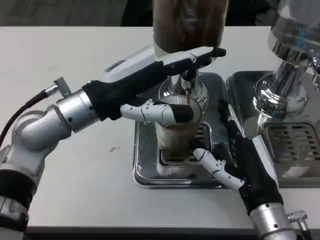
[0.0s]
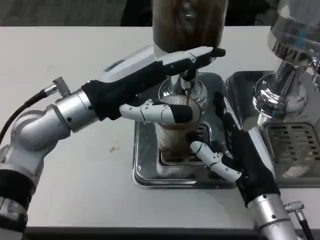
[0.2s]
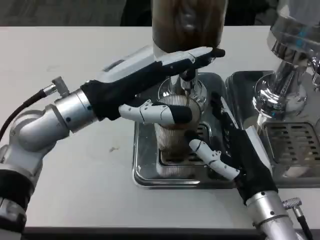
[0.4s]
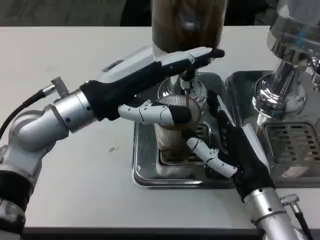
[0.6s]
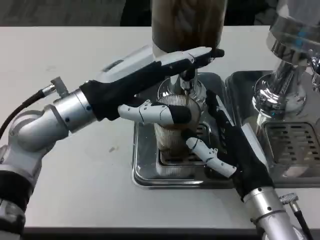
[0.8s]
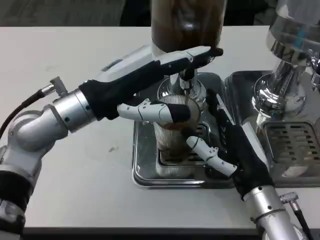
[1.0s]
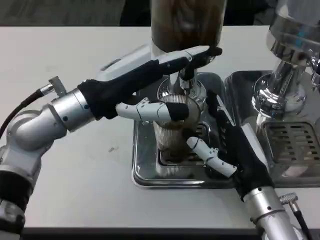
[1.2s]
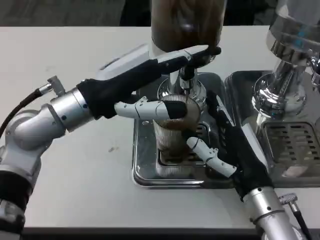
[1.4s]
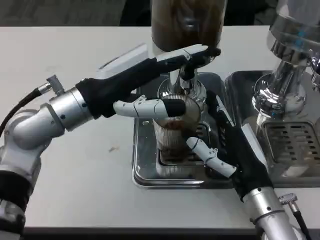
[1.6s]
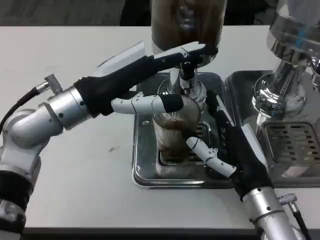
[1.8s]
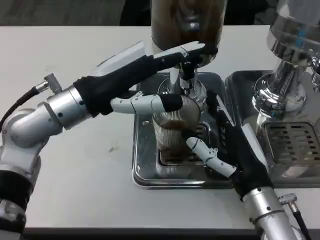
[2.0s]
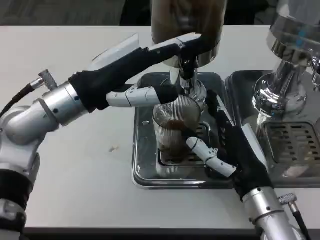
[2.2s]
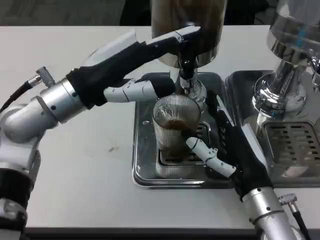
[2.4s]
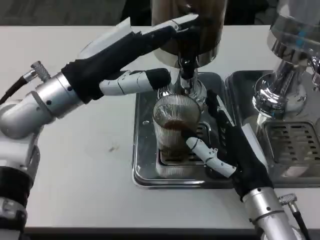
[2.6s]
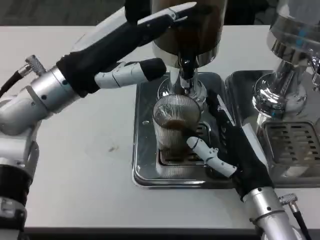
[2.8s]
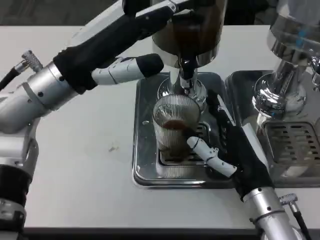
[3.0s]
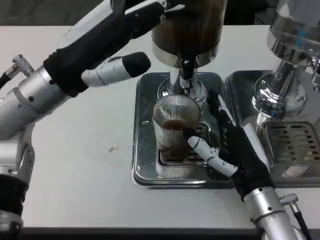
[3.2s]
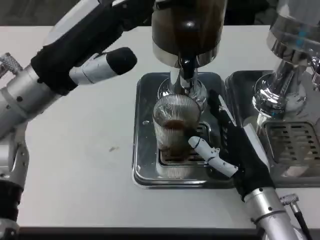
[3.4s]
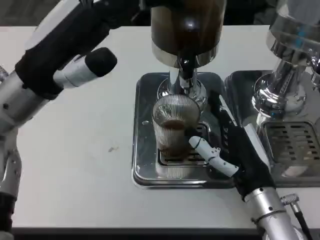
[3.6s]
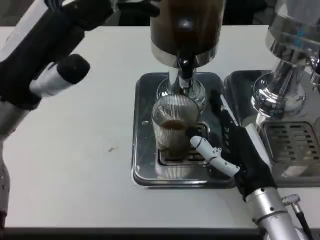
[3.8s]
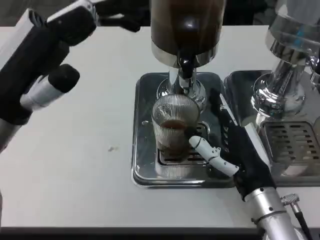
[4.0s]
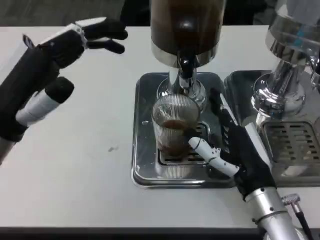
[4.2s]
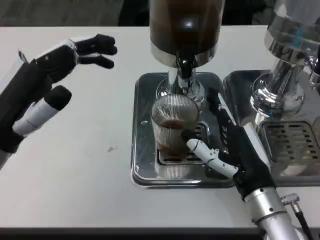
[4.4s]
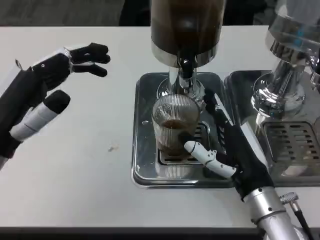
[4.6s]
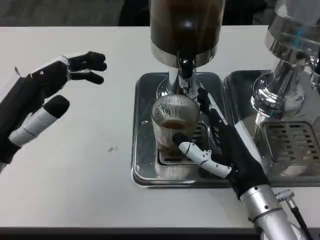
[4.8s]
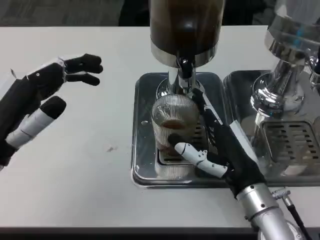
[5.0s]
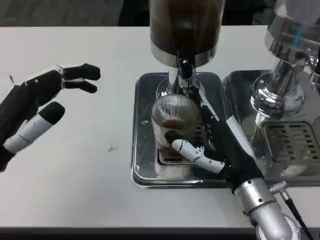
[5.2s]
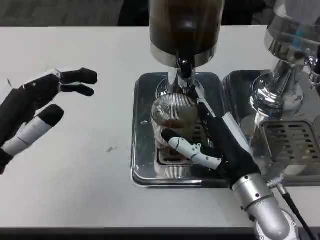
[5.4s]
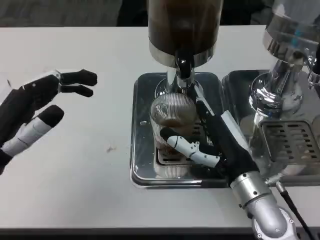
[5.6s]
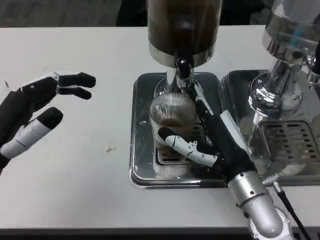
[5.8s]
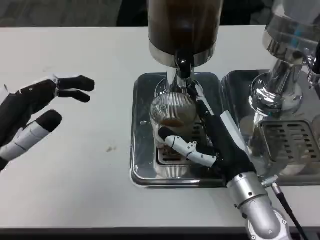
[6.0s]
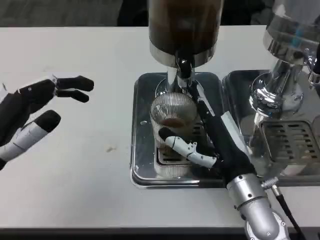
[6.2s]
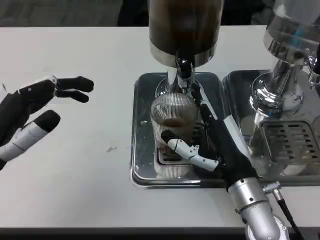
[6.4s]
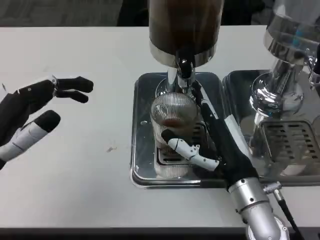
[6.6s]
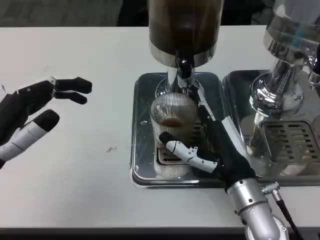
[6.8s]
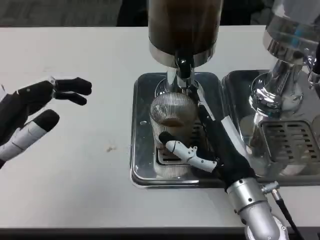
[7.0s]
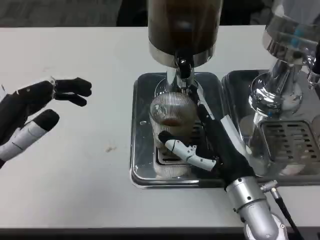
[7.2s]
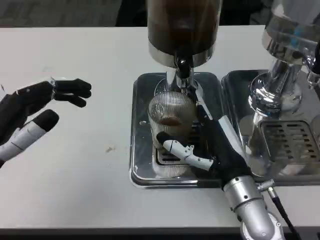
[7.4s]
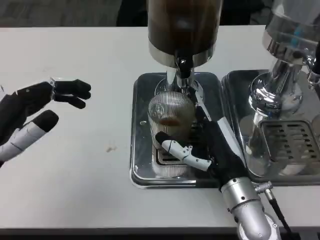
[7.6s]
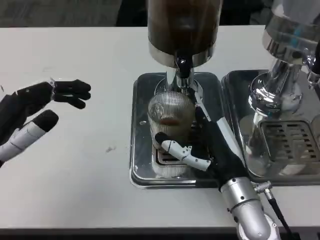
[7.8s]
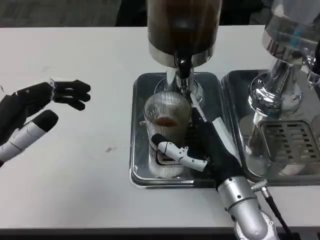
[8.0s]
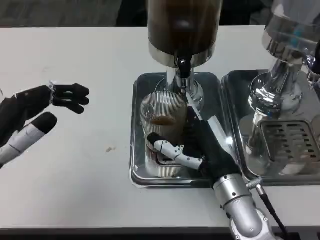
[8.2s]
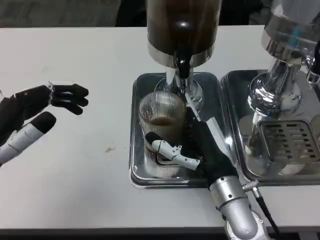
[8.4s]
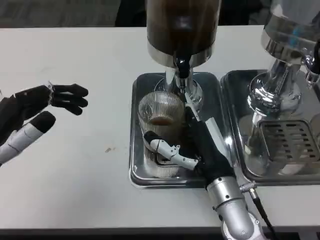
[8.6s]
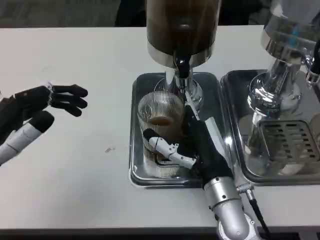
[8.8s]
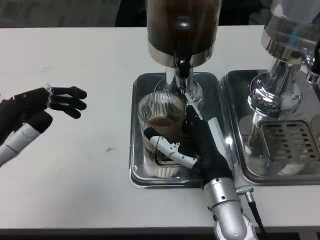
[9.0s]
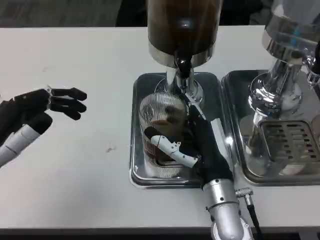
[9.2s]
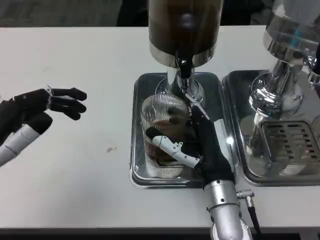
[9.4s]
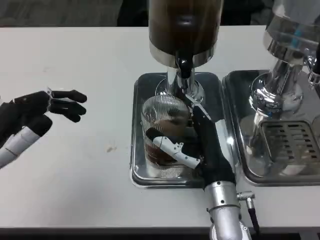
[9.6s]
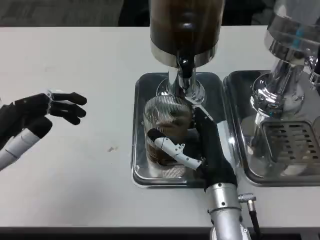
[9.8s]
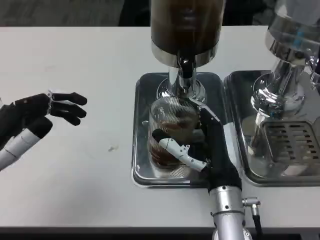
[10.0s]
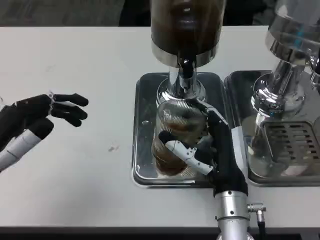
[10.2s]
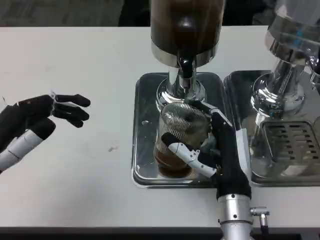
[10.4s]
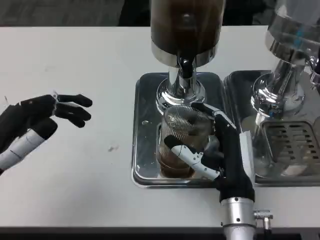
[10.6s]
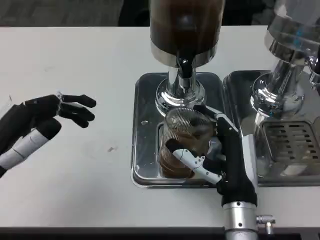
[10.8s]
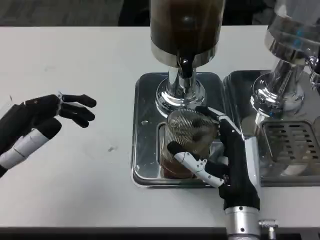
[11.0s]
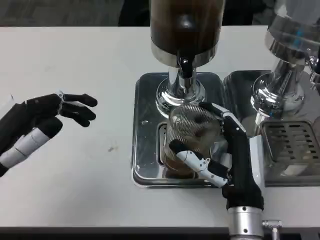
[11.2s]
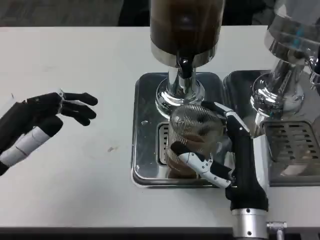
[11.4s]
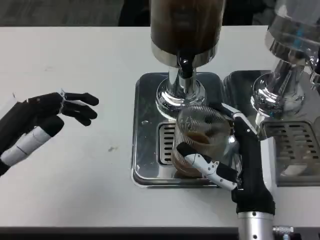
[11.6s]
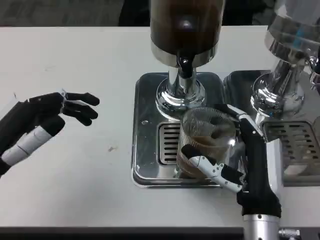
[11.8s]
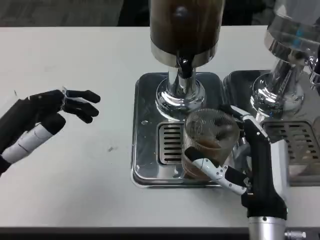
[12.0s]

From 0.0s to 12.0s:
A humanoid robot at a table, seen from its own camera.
Task of the whole recording: Grasp the cup under the faucet to collect the drink, then remove the cup.
From 3.0s to 4.4s: The left hand goes roughly 10 cm backward, to the left and downward.
From 6.0s to 7.6s: The two hands keep their place.
From 7.6s to 9.0s: There are only small adjustments of the hands.
From 10.4s to 12.0s: The right hand moves about 5 cm.

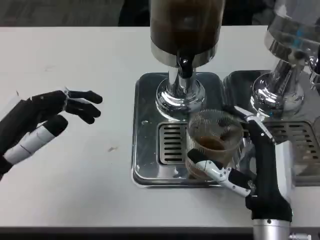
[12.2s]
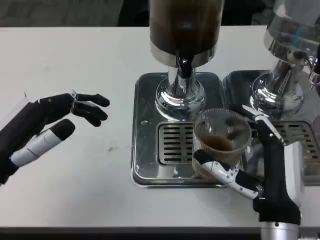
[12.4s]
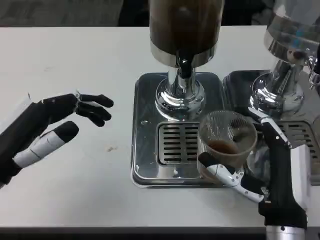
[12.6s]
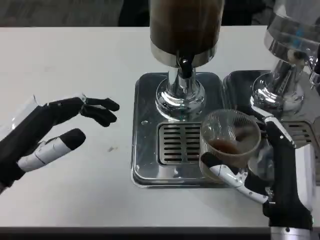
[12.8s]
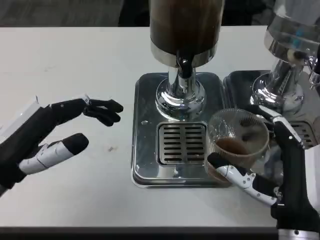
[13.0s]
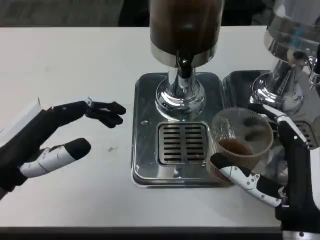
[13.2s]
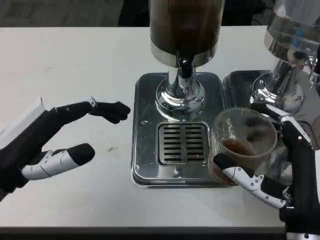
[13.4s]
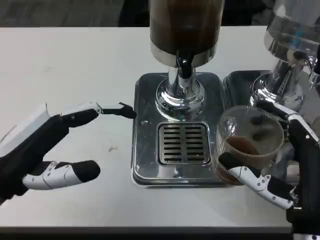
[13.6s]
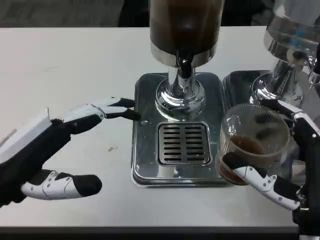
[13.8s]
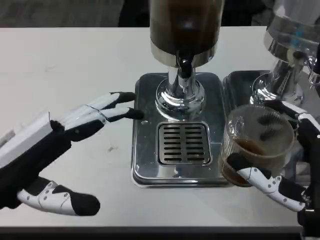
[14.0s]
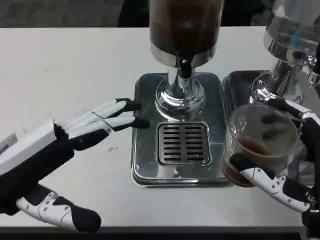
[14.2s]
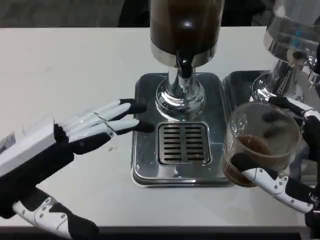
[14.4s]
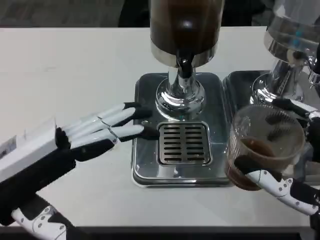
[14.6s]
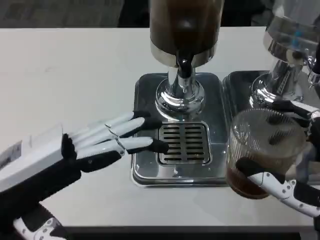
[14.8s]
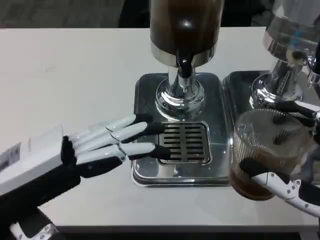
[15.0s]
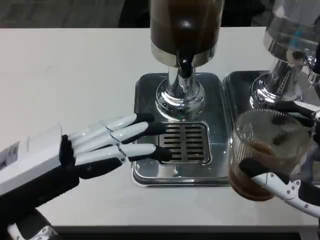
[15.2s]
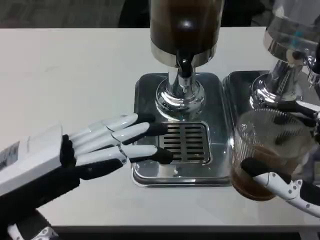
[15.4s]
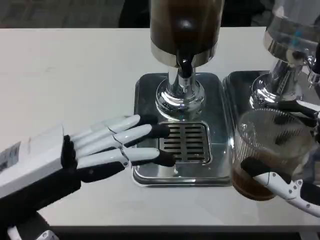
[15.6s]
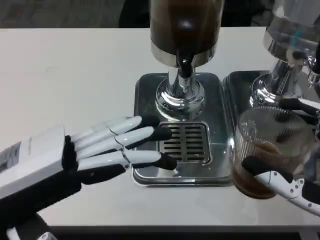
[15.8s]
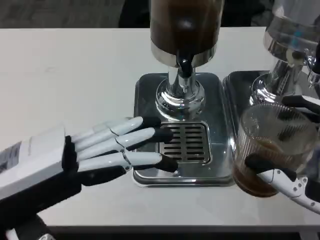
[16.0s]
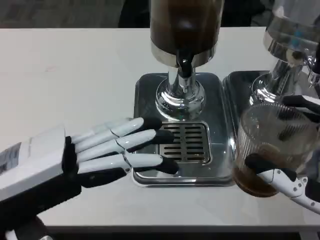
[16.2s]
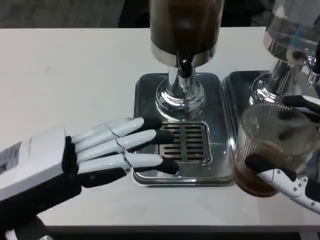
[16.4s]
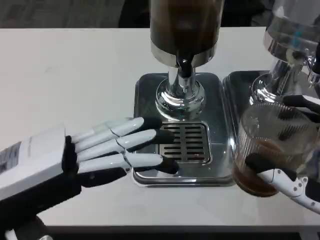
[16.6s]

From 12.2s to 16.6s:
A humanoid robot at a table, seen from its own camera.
Task of the whole recording: Grasp the cup under the faucet to collect the drink, then remove the cup.
From 12.2s to 13.6s: The right hand shifts by roughly 5 cm.
From 13.6s to 15.2s: The left hand moves roughly 5 cm.
From 15.2s to 16.6s: Both hands stay put.

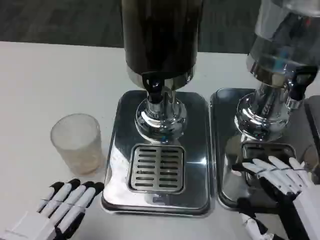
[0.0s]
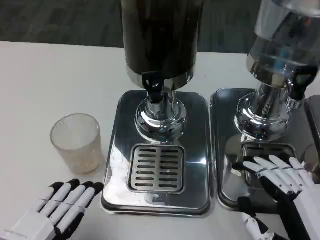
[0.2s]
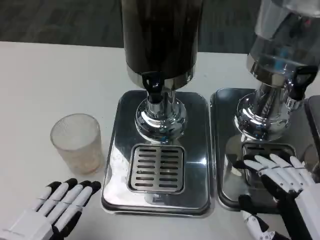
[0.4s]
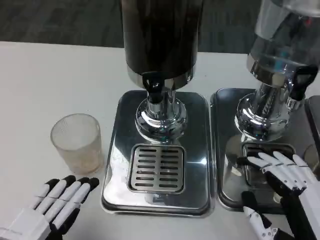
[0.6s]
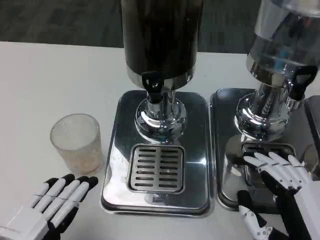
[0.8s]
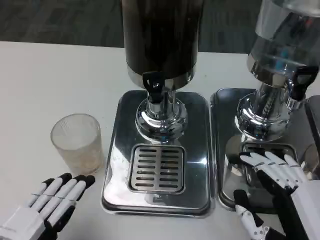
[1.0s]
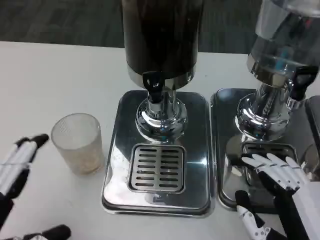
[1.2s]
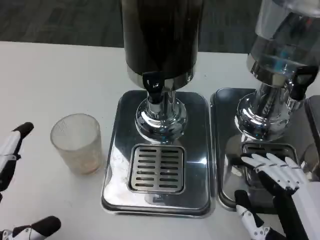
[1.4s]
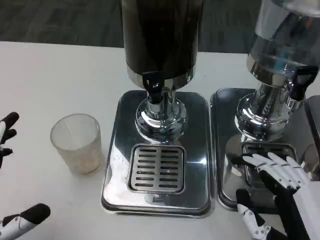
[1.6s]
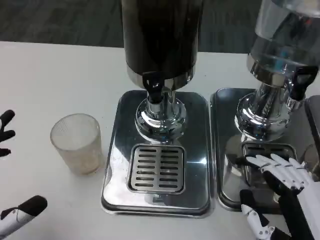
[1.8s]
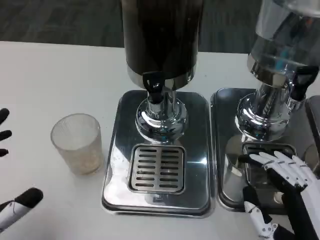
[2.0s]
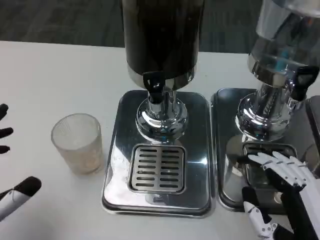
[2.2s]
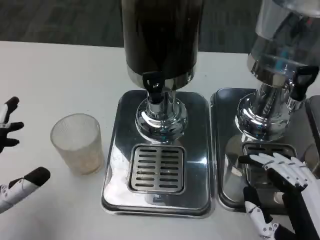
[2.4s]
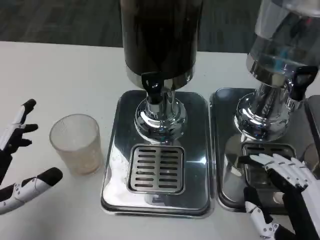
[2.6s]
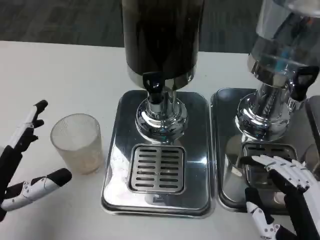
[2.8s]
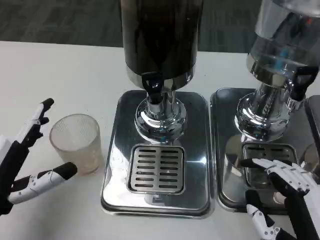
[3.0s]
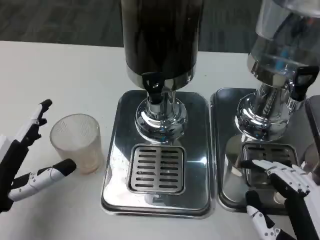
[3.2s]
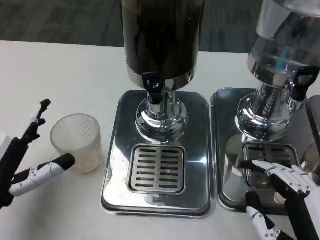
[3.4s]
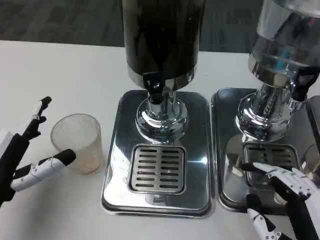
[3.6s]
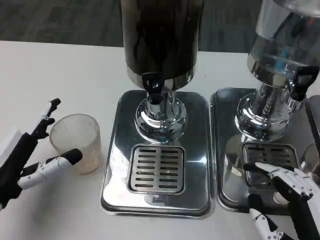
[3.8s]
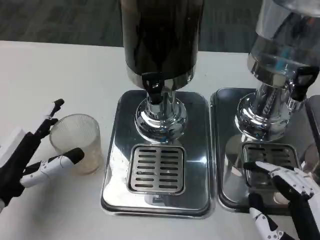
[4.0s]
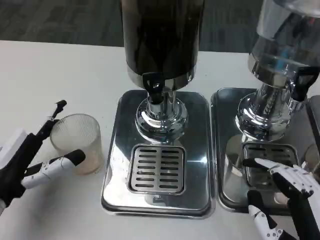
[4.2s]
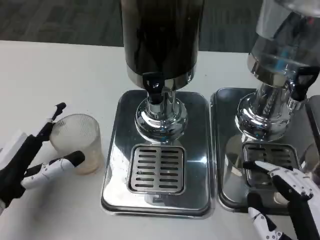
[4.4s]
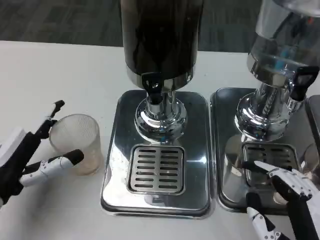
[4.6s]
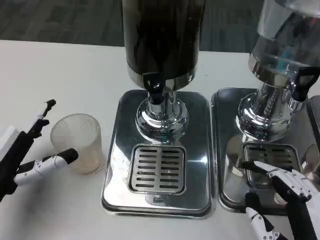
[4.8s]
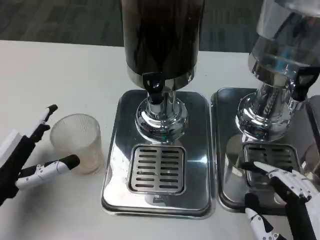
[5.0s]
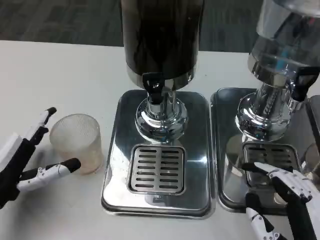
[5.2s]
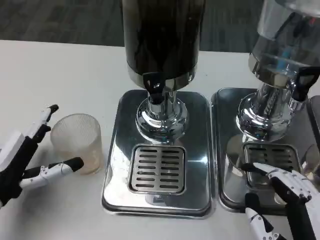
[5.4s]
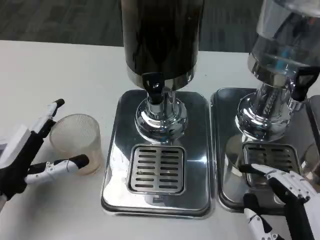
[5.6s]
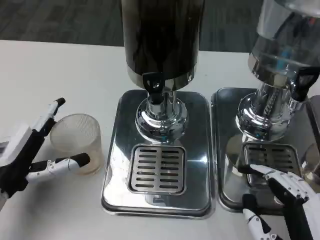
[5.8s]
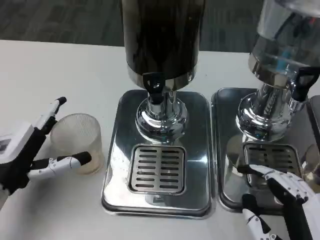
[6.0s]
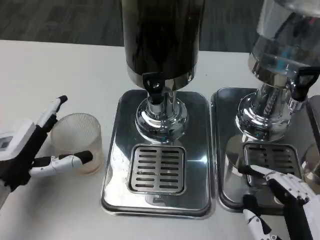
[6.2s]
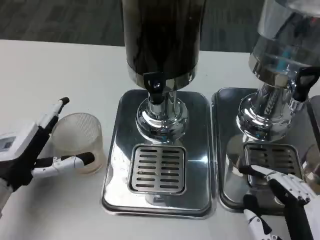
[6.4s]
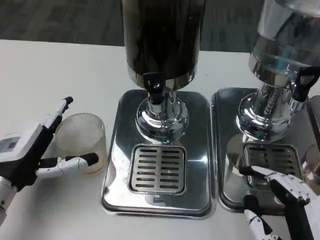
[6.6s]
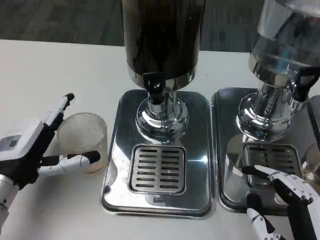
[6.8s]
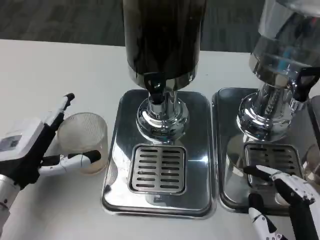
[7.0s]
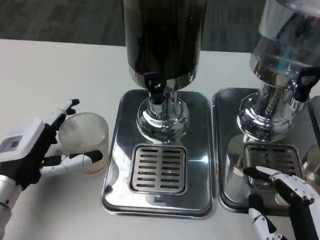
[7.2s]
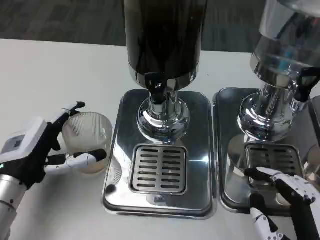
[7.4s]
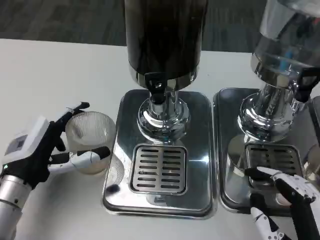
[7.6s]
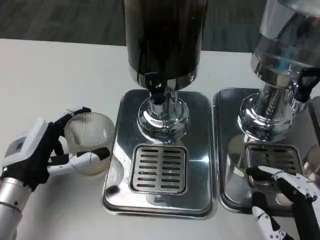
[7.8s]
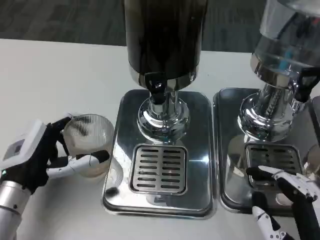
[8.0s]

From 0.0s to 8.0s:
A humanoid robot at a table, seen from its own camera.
Task of the whole recording: Grasp the cup under the faucet to collect the drink, then remove the cup.
From 1.6s to 3.2s: The left hand travels forward by roughly 10 cm.
From 3.2s to 6.4s: The hands move only a little.
